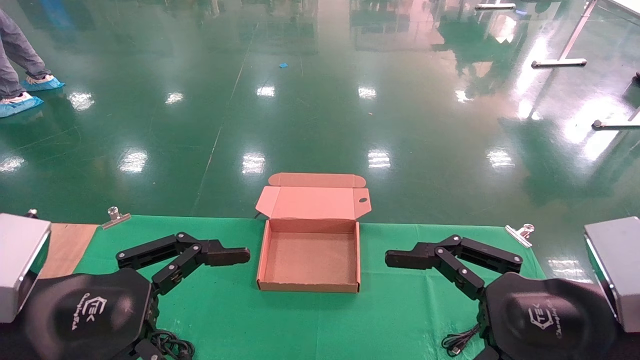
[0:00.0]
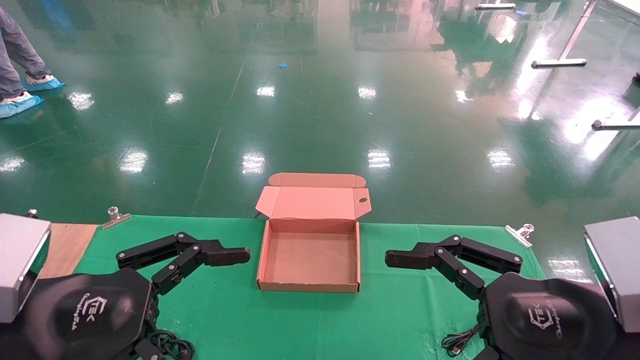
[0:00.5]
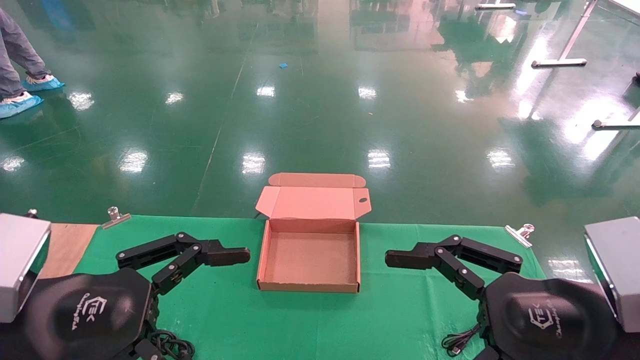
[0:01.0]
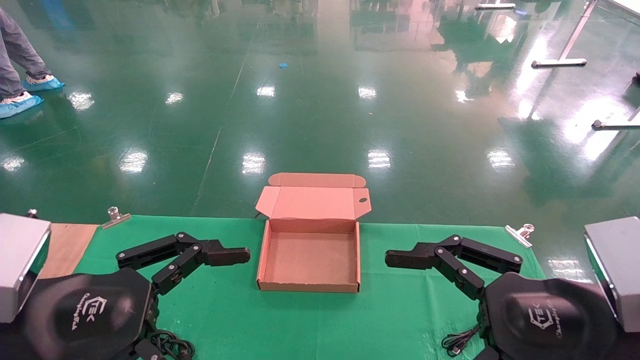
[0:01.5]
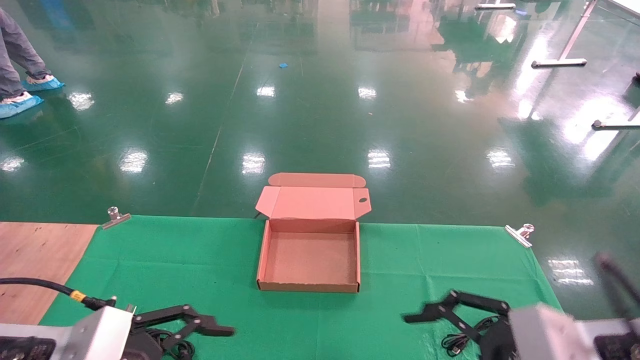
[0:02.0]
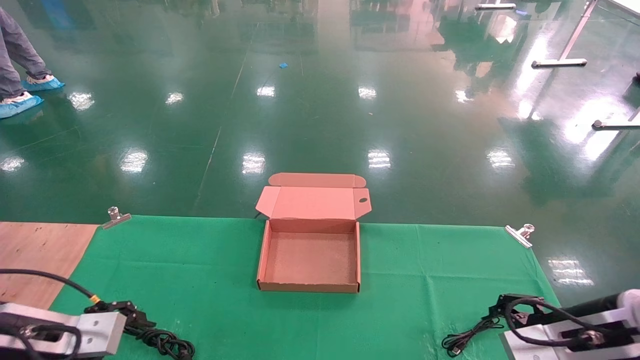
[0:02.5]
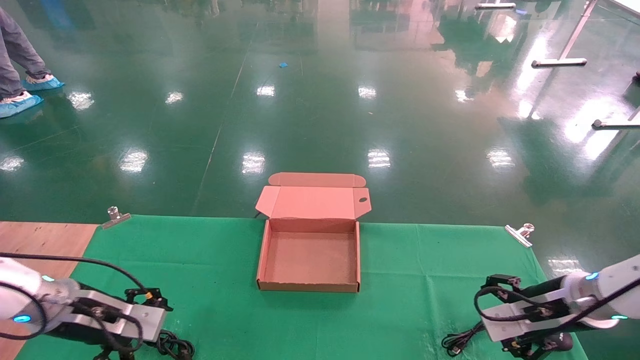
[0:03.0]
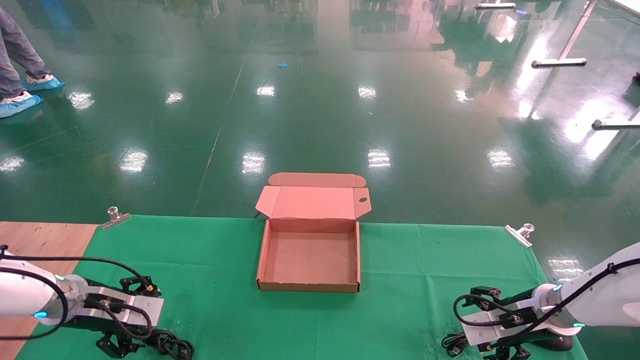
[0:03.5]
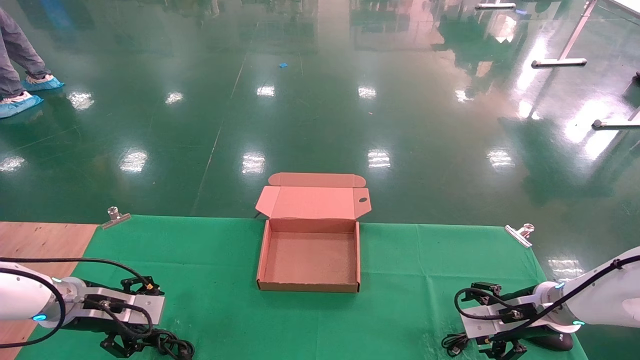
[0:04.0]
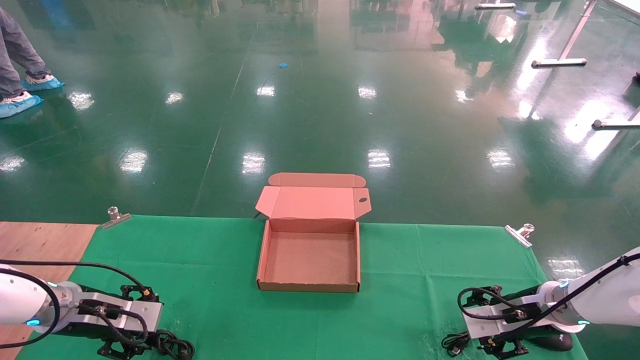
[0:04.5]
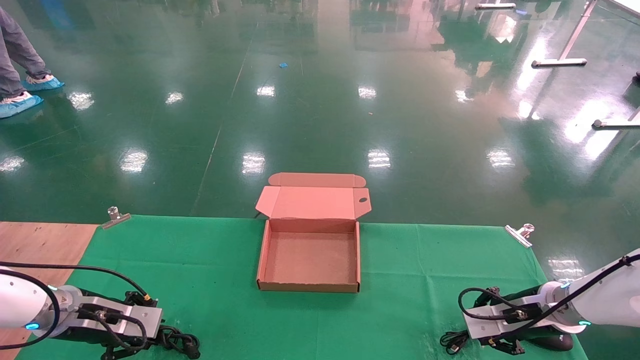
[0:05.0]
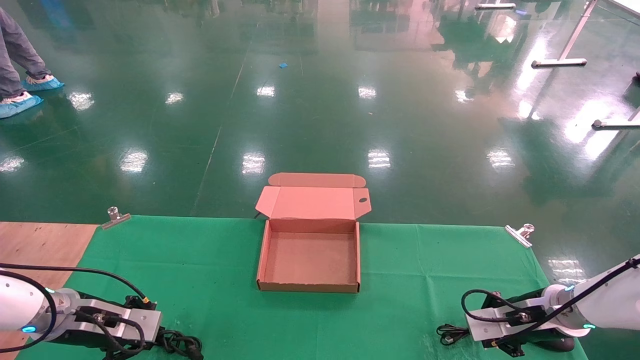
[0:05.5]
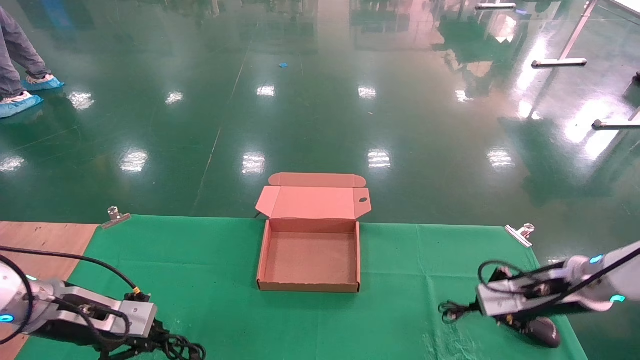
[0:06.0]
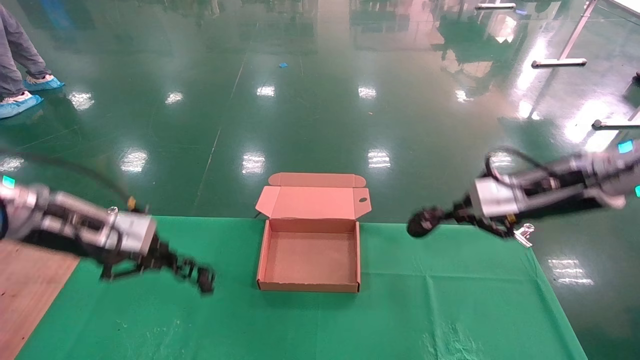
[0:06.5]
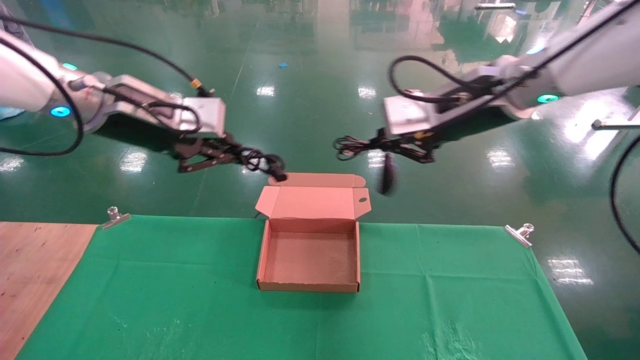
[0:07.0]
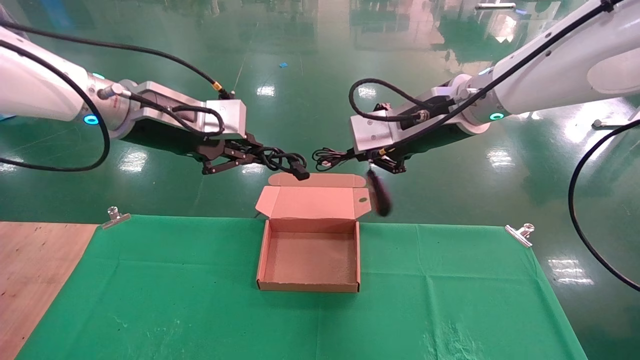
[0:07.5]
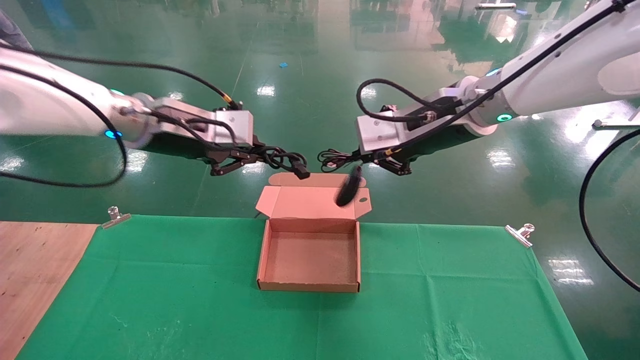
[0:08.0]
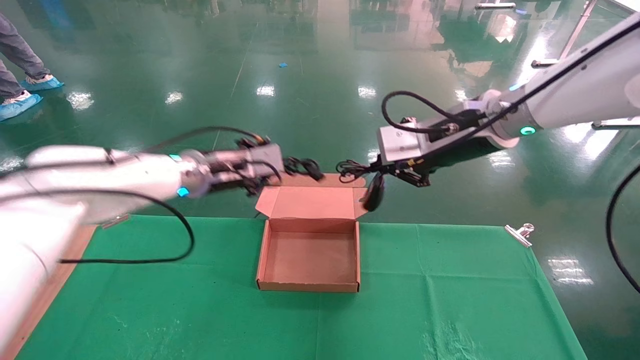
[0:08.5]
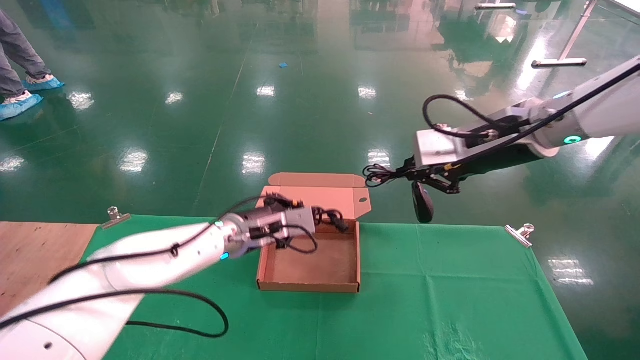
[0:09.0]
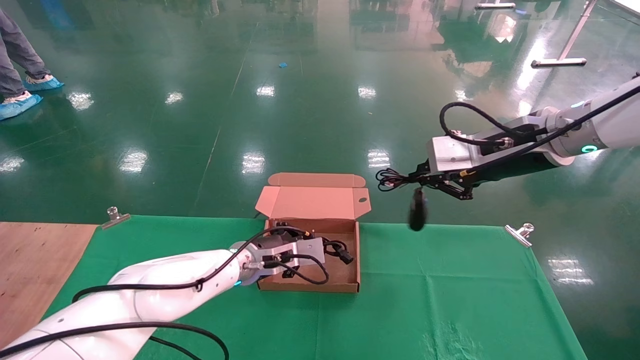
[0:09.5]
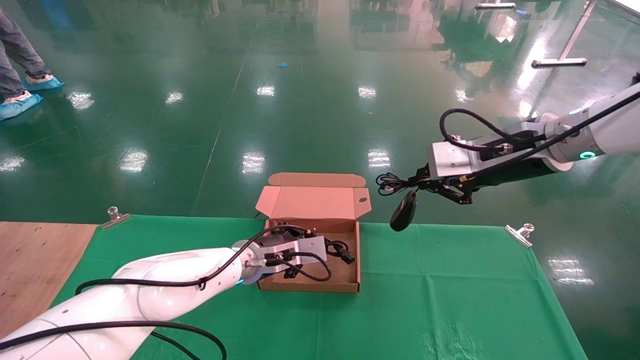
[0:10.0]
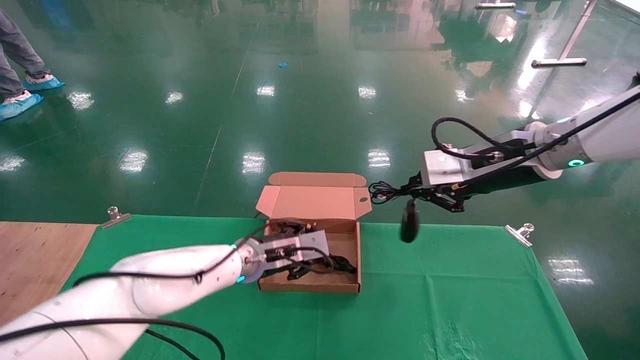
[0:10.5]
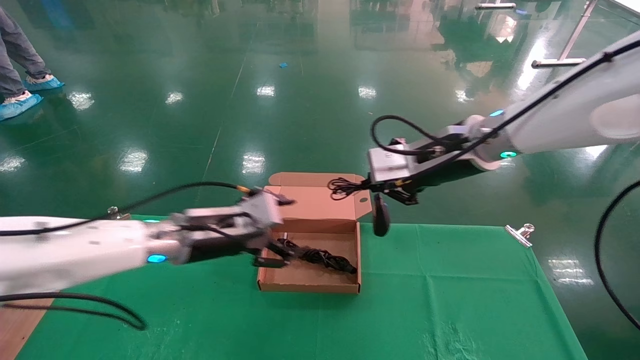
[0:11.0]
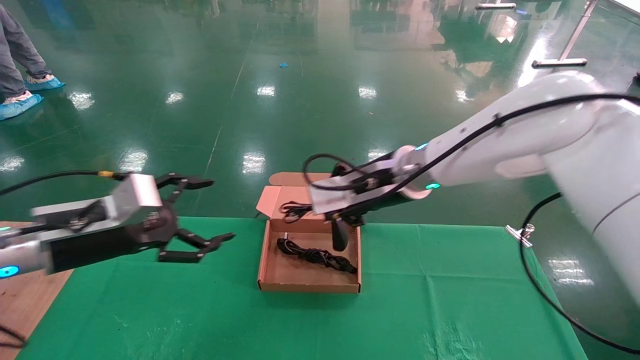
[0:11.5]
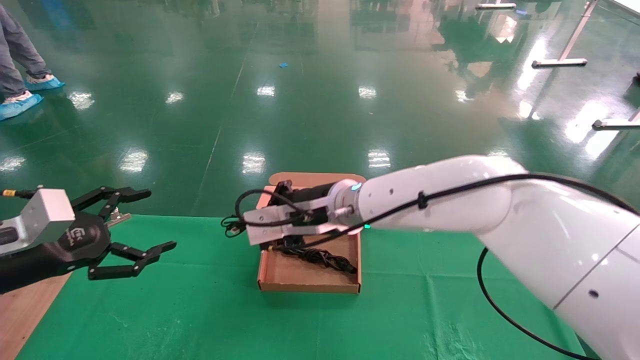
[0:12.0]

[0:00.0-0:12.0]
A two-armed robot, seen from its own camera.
Step, 0:02.5 to 0:06.5: Grab and lift both the mouse and power cord from the accessory packaging area at the same time.
0:00.0 to 0:02.0: The right gripper shifts by about 5 cm; the left gripper moves downward, approximately 5 cm.
0:02.0 to 0:04.0: The left gripper travels forward, to the left and downward by approximately 20 cm, while the right gripper is displaced forward and downward by some 25 cm.
0:04.0 to 0:06.0: The right gripper shifts approximately 5 cm upward, and closes up. The left gripper shifts by roughly 5 cm, and closes.
0:06.0 to 0:08.0: The right gripper travels upward and to the left by some 30 cm. Meanwhile the left gripper is displaced upward and to the right by about 30 cm.
0:08.0 to 0:10.0: The left gripper travels downward and to the right by roughly 25 cm, while the right gripper moves to the right, roughly 10 cm.
0:10.0 to 0:12.0: The left gripper moves to the left and backward, about 35 cm, and opens; the right gripper goes about 25 cm to the left.

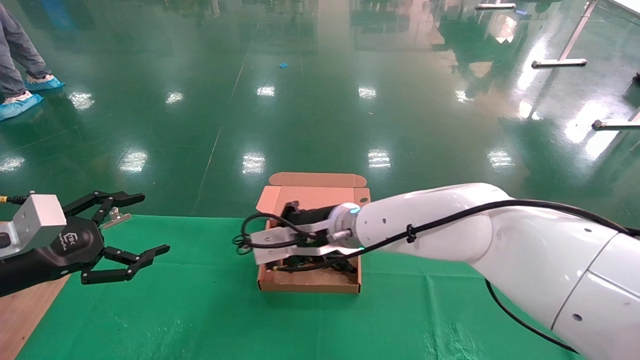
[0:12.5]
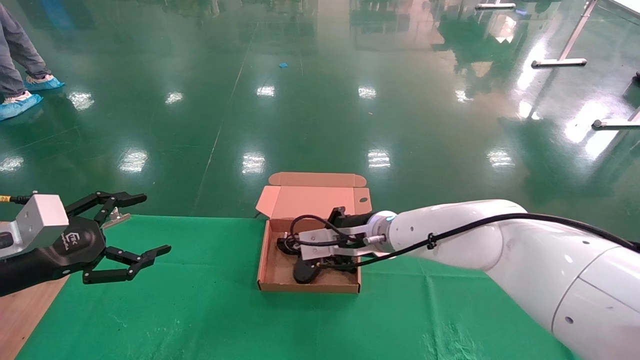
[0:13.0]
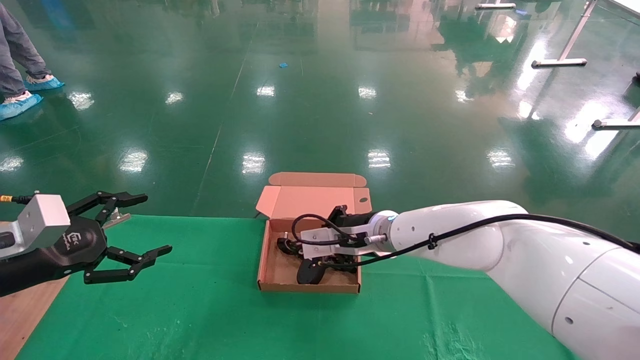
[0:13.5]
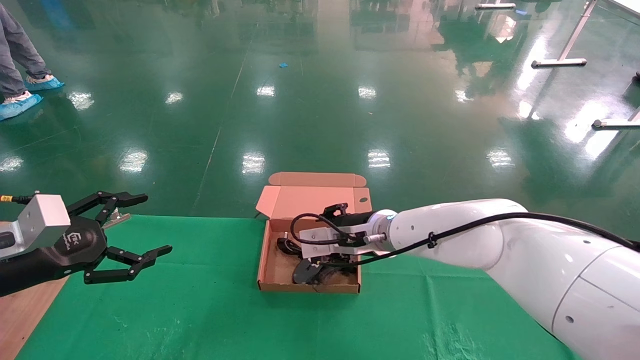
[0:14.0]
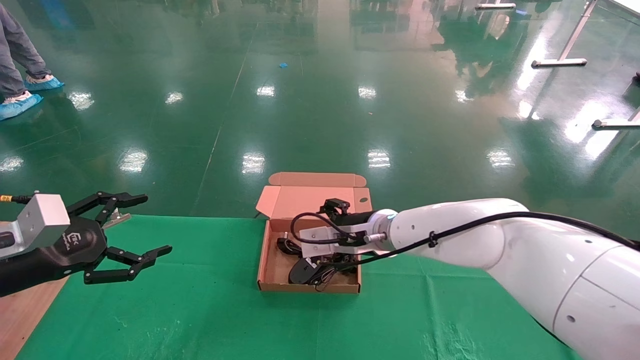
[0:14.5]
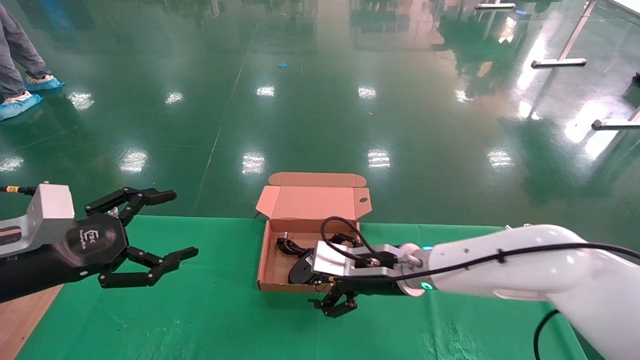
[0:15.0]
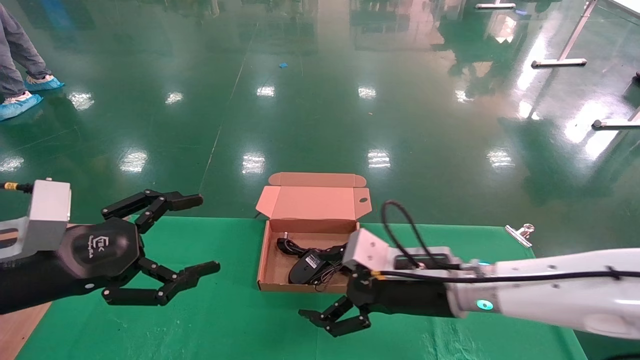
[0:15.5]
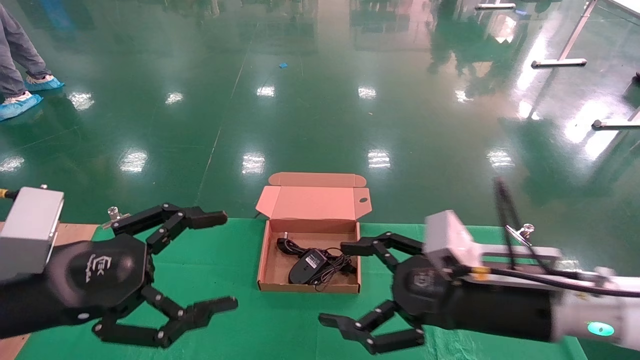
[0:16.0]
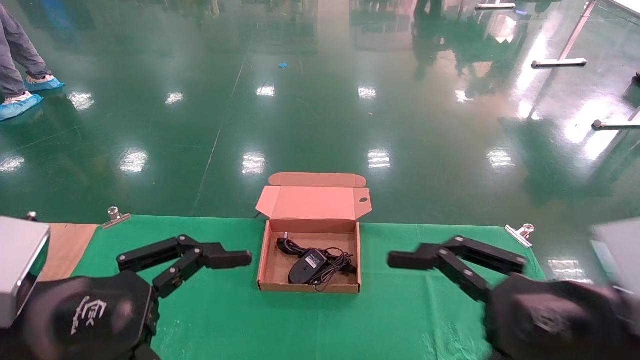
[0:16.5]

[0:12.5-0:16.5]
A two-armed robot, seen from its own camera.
Step, 0:12.5 to 0:14.5: Place the mouse and power cord into the box.
0:12.5 to 0:14.5: The right gripper shifts roughly 5 cm to the right, and opens its fingers.
0:14.5 to 0:16.5: The left gripper shifts approximately 20 cm to the right and backward, while the right gripper goes some 30 cm backward and to the right.
